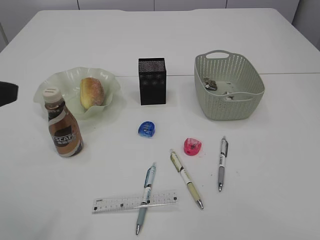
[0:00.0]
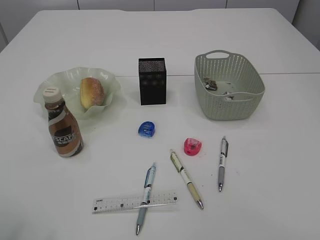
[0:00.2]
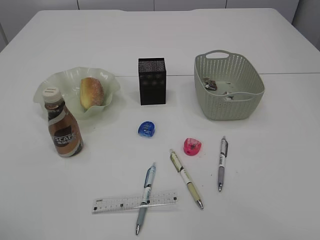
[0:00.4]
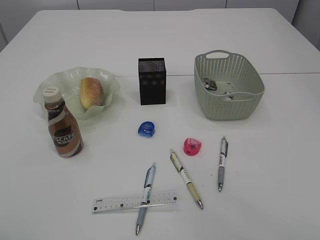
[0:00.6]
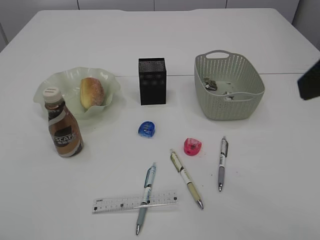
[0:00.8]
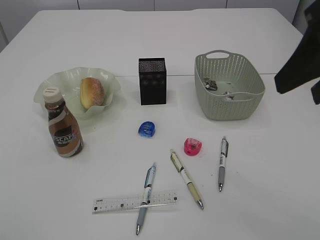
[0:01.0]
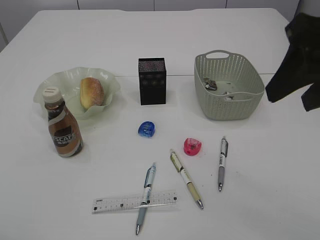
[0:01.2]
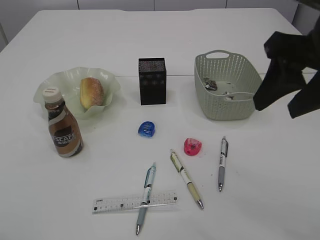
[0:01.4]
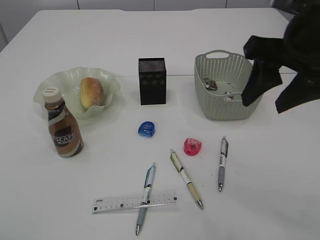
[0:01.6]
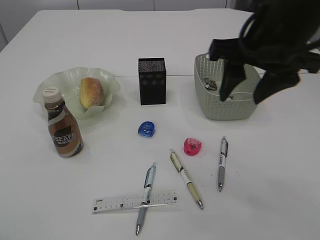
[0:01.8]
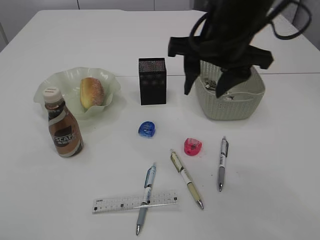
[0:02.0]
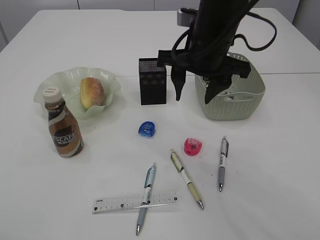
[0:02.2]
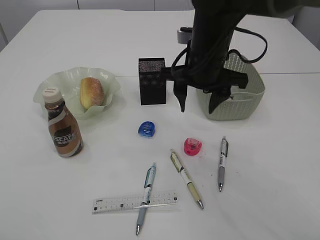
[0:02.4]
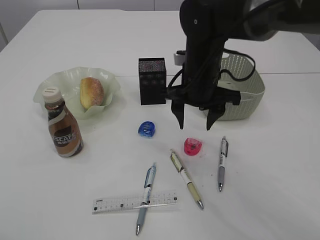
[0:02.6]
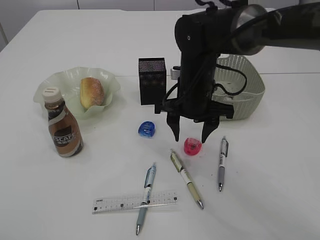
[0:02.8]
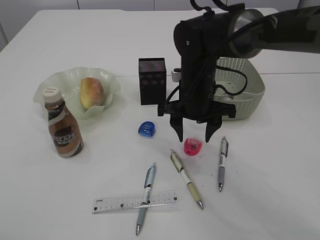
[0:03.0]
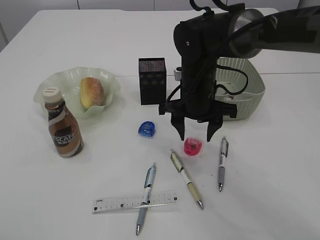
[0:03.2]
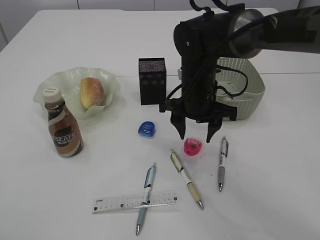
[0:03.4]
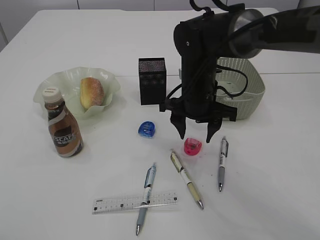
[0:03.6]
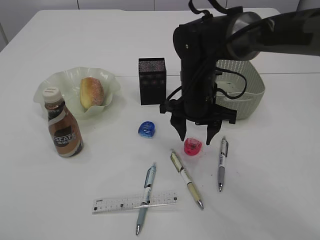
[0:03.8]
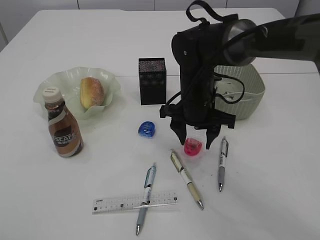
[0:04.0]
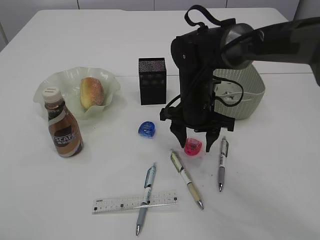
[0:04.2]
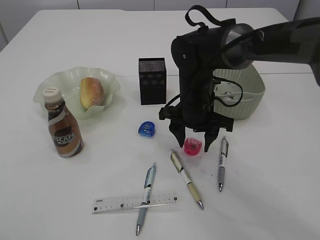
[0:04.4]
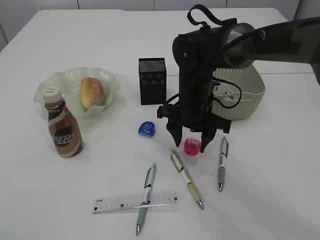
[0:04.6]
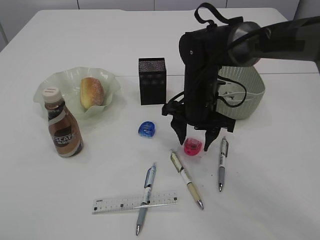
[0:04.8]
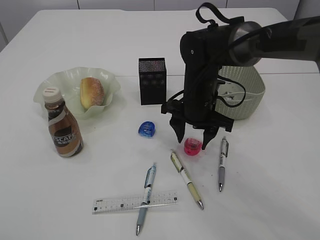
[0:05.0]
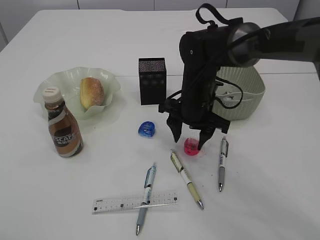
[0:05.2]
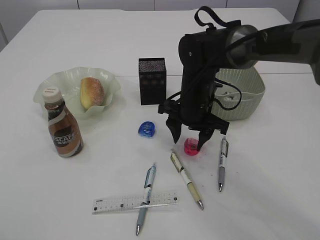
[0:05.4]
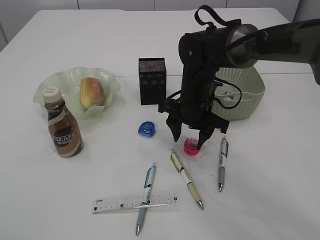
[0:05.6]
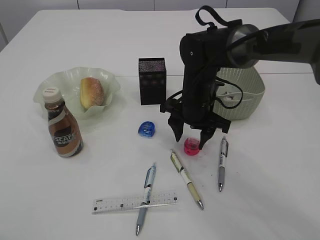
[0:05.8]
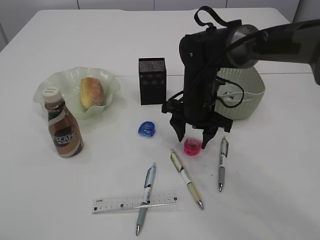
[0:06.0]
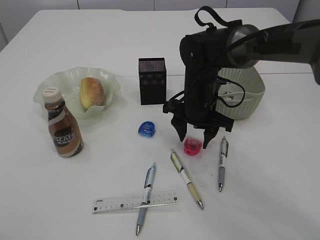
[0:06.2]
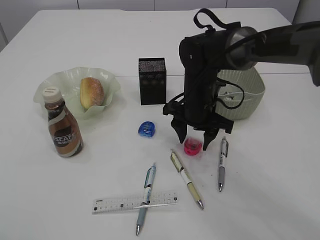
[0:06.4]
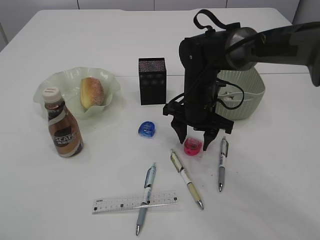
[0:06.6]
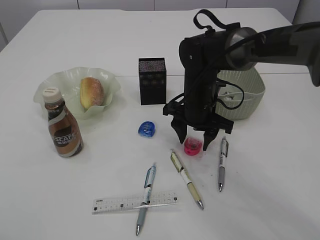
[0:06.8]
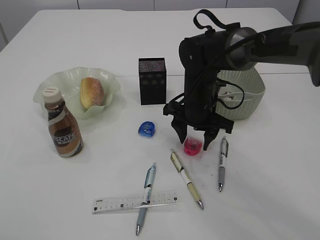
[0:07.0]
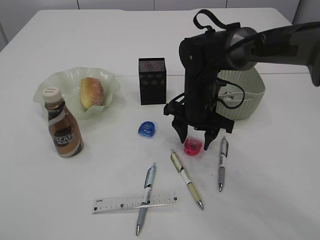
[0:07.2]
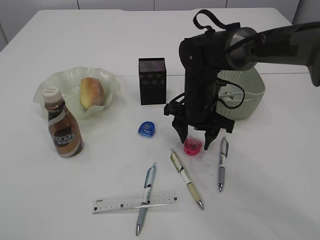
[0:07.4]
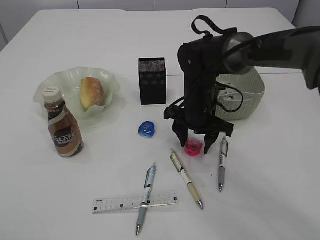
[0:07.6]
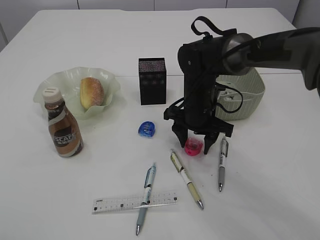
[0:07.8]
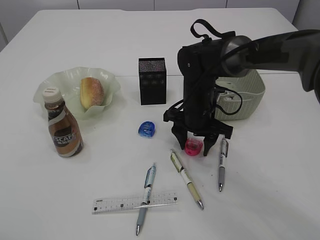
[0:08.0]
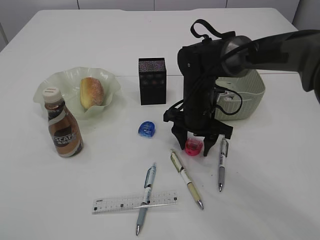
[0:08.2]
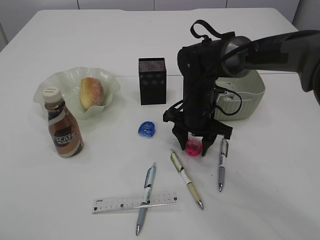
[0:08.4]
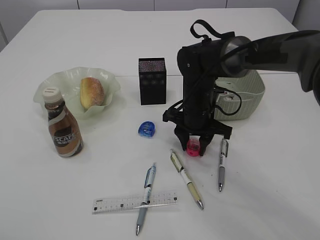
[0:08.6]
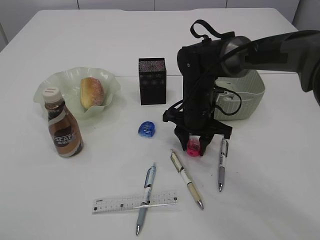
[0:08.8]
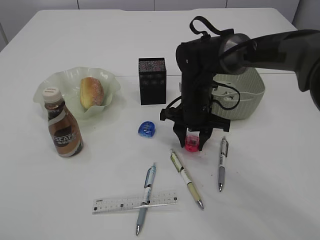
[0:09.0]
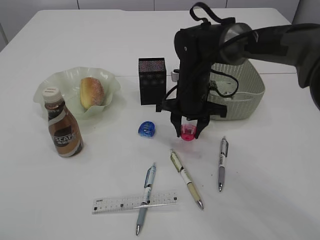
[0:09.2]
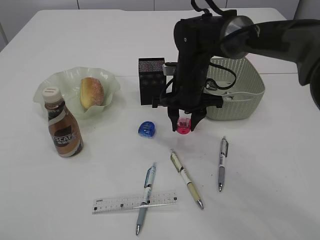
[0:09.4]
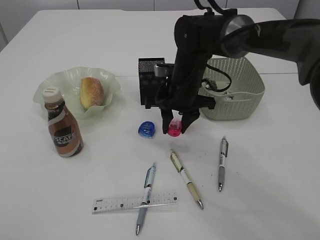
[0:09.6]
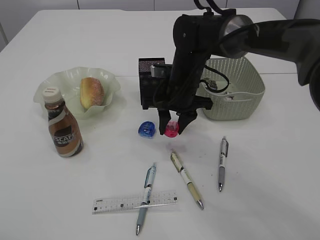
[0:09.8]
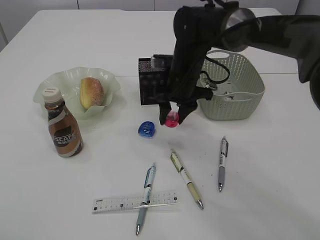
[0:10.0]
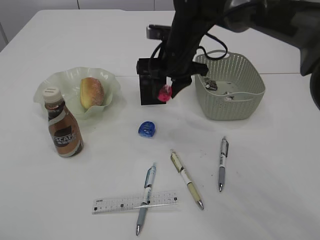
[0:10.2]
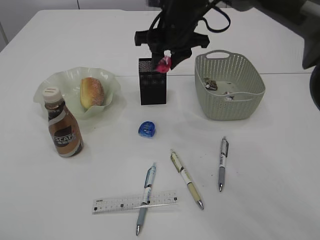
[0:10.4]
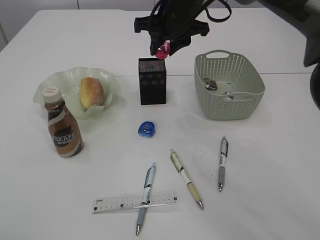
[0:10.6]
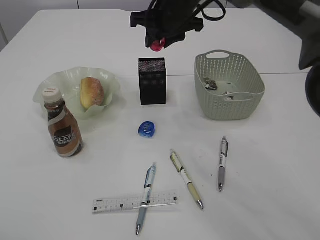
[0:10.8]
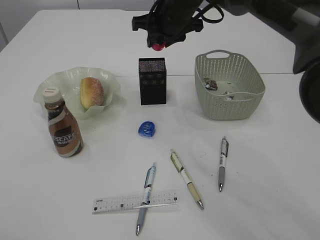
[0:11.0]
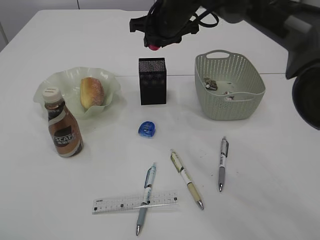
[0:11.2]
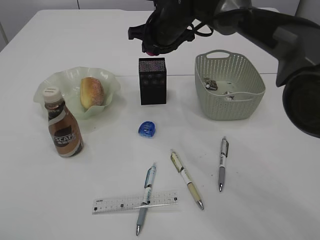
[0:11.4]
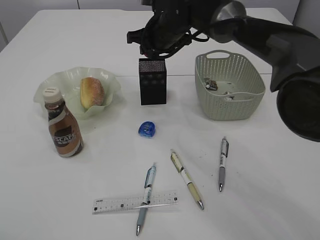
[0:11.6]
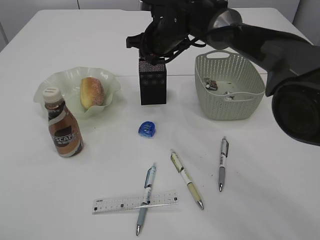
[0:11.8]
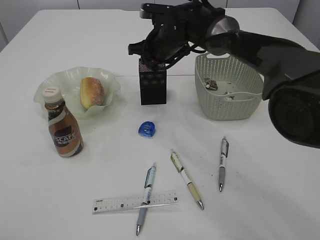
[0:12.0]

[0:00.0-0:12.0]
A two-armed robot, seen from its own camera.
Step, 0:00.0 to 0:09.4: Pick up the red pencil sharpener.
0:00.0 to 0:01.6: The right gripper shifts approximately 15 cm forward.
0:01.6 to 0:03.0: The right gripper goes roughly 25 cm downward, forward and to the left.
0:03.0 to 0:04.4: There are only small adjustments of the grippers.
0:04.4 to 0:06.0: The grippers stay close to where they were, moving slightly.
0:06.0 to 0:07.6: Neither gripper changes place.
0:07.6 to 0:09.0: The grippers move only a little.
0:09.0 to 0:10.4: The right gripper is displaced upward by approximately 15 cm.
0:10.4 to 0:12.0: The right gripper is displaced downward and forward by about 10 cm.

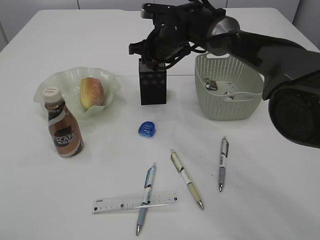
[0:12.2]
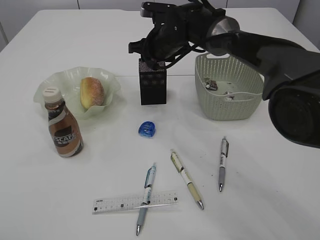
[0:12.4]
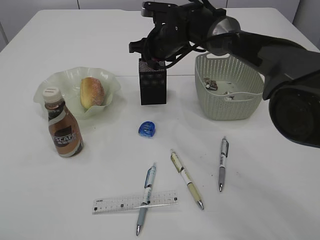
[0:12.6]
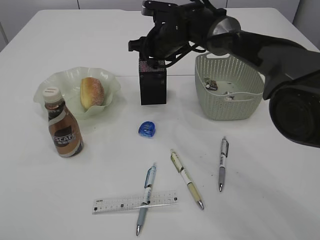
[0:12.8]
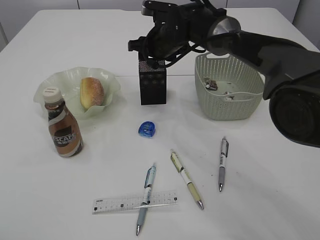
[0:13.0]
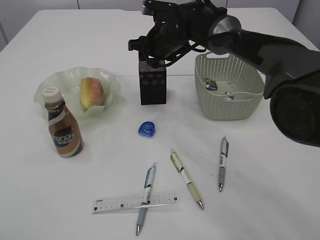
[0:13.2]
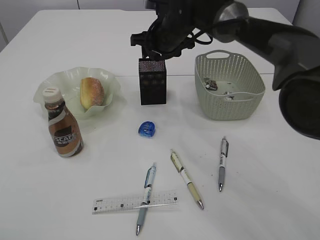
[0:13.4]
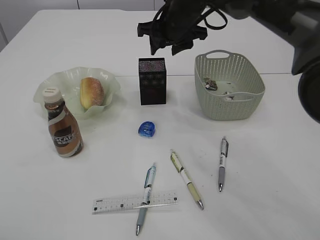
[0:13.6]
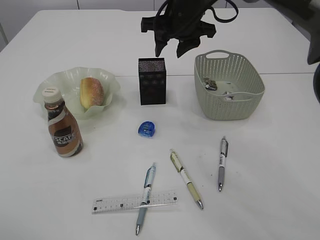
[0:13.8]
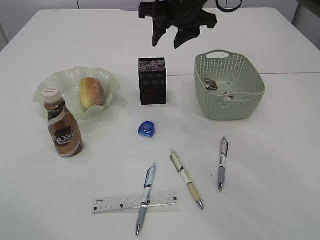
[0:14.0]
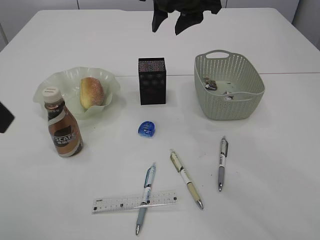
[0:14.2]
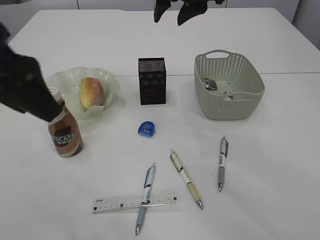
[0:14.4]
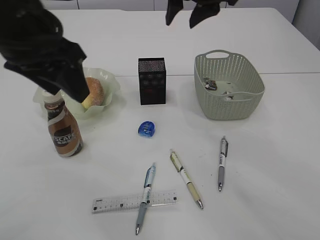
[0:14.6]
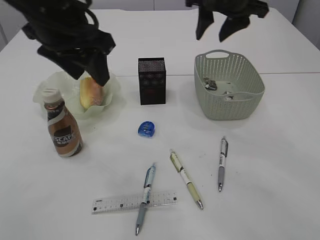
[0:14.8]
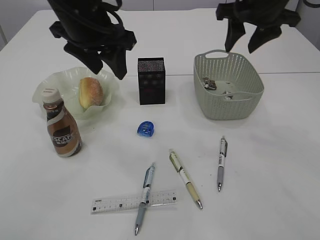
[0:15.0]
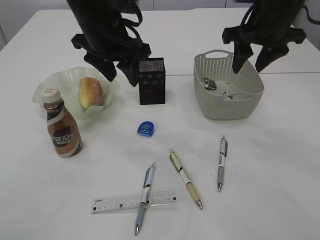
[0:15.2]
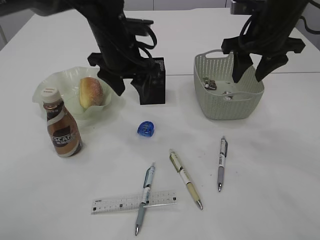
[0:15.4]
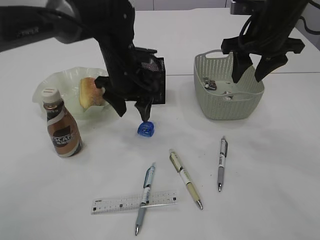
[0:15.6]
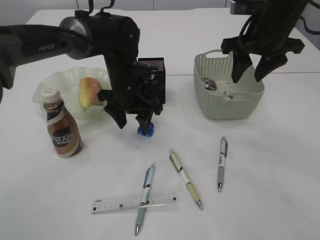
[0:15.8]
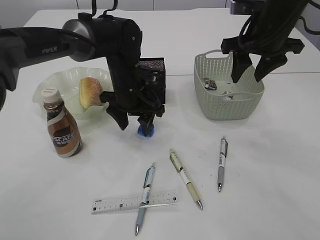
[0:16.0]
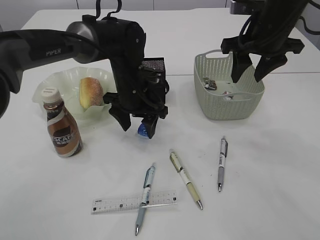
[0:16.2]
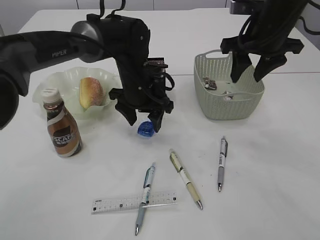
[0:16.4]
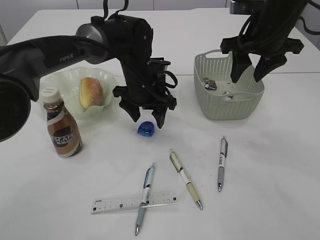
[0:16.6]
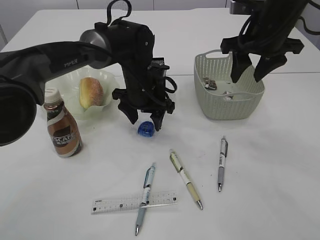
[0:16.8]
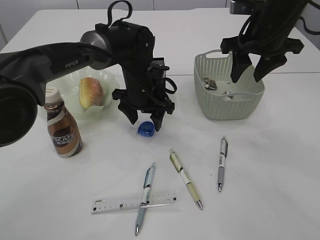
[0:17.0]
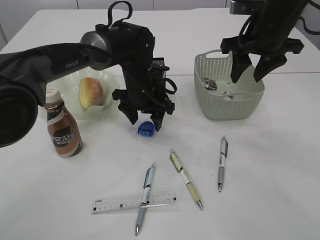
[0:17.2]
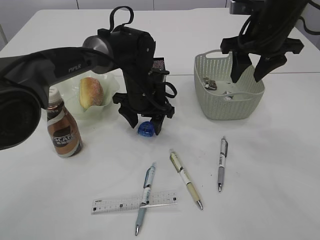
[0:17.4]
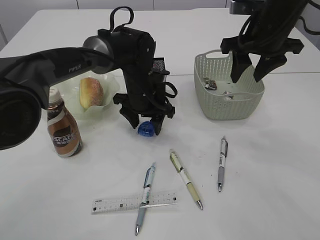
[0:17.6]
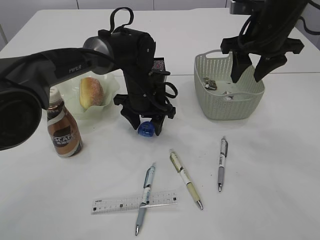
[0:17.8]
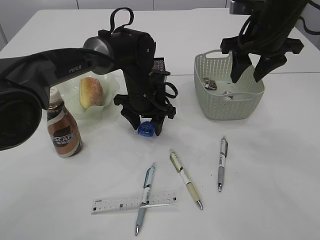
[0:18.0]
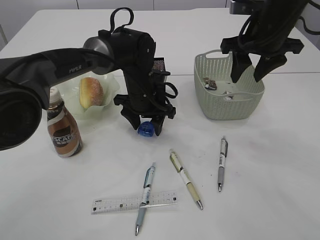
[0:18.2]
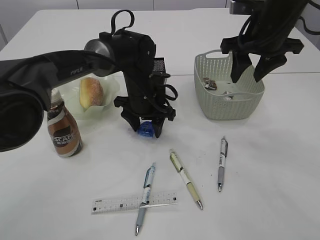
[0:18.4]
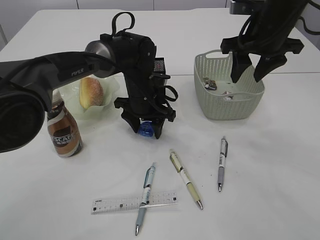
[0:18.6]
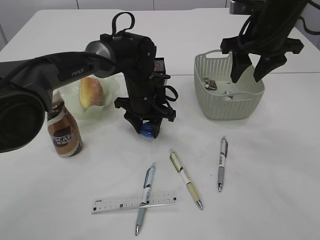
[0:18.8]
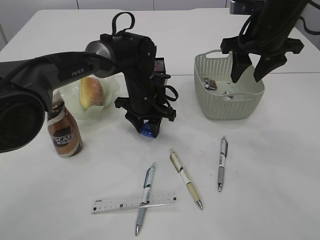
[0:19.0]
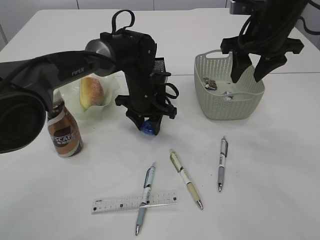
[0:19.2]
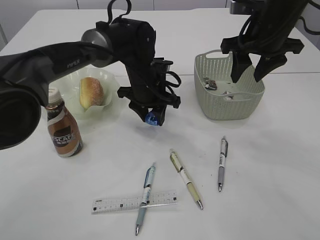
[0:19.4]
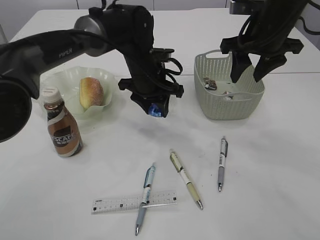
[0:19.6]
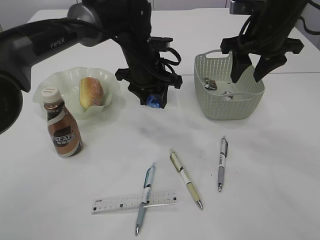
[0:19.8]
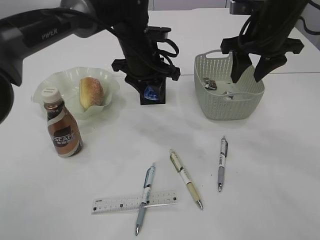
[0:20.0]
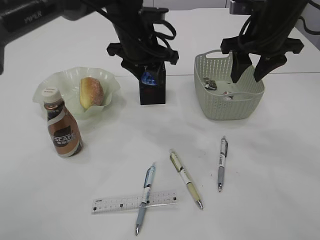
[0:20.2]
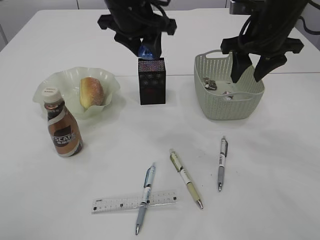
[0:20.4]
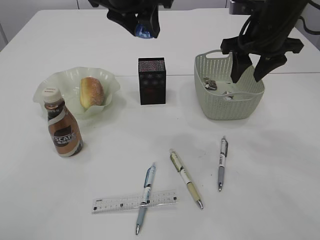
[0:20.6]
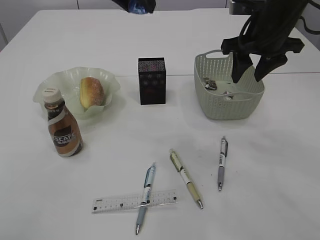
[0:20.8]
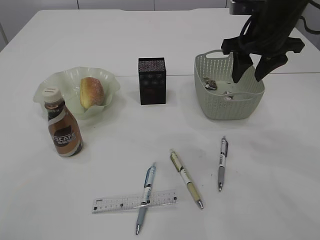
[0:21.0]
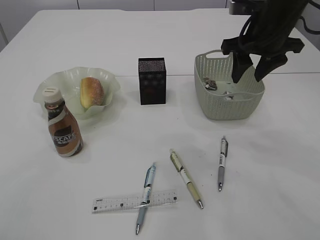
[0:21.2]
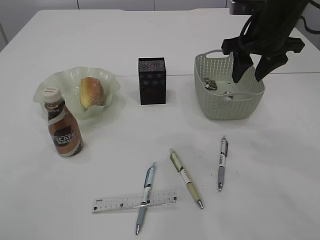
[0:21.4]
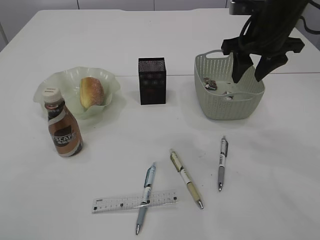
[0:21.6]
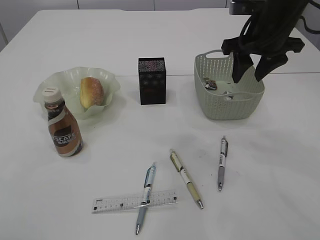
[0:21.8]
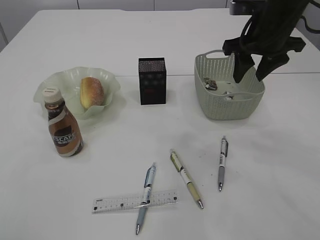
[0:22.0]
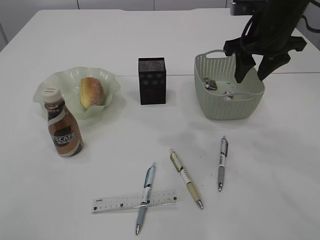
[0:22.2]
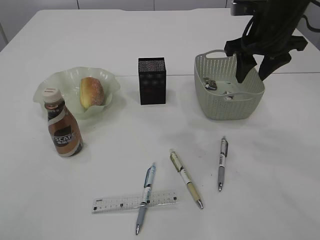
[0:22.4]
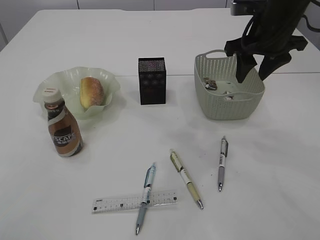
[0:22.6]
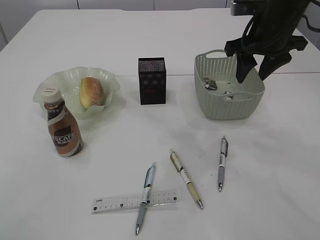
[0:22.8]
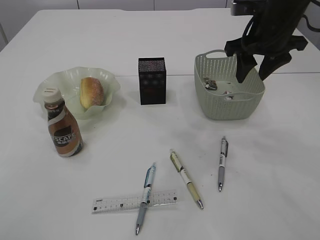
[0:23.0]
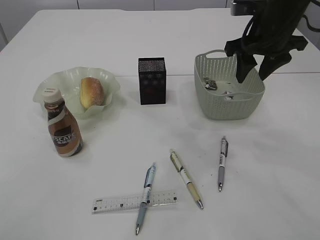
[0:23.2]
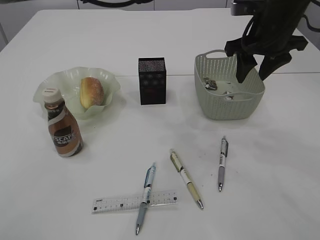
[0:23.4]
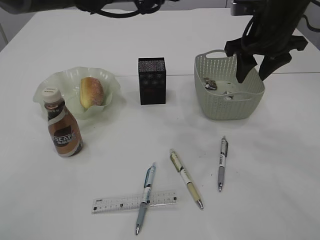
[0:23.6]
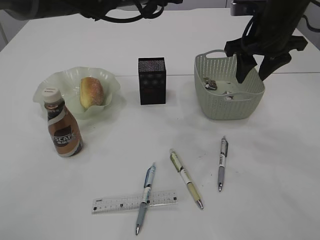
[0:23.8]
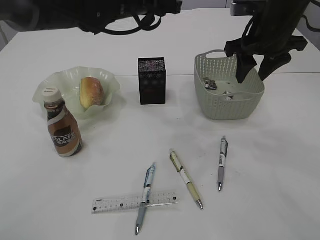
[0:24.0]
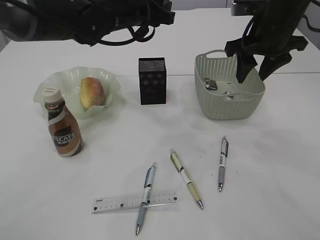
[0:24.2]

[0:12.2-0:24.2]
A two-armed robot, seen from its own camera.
Step, 0:13.6 to 0:19.4: Pick up the blue pencil sharpener.
0:12.2 to 0:13.8: The left gripper heads upward, covering roughly 5 cm. Meanwhile the right gripper is displaced upward and backward by approximately 10 cm.
0:13.8 to 0:15.2: The left gripper shifts some 30 cm forward, to the right and downward. The right gripper is displaced to the right by roughly 15 cm.
0:15.2 to 0:16.6: The left gripper is displaced downward by some 15 cm.
0:16.6 to 0:18.2: There are only small adjustments of the grippers.
0:18.2 to 0:19.8: The left gripper shifts about 5 cm upward.
0:19.8 to 0:21.2: The left gripper is displaced upward by about 25 cm.
0:22.6 to 0:24.2: The left gripper moves downward, some 10 cm.
